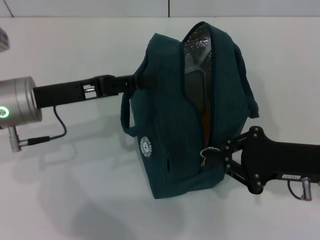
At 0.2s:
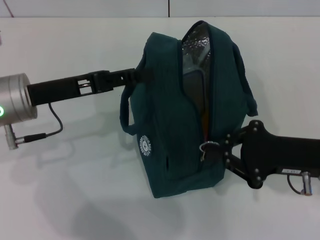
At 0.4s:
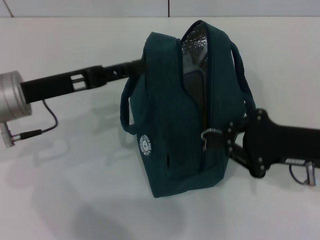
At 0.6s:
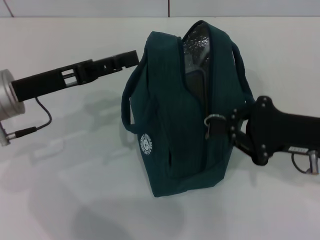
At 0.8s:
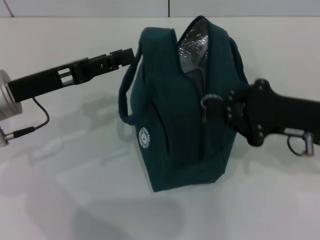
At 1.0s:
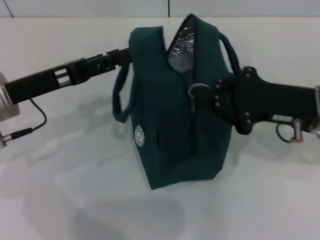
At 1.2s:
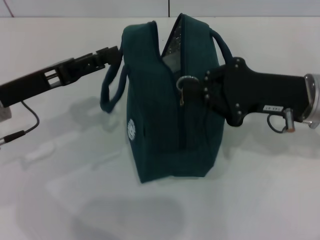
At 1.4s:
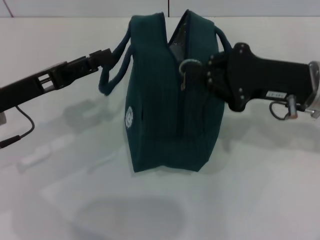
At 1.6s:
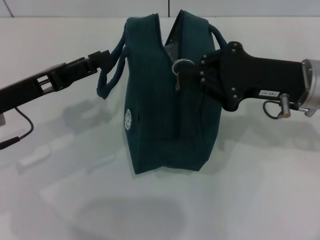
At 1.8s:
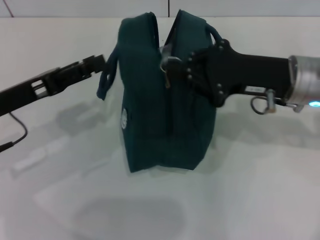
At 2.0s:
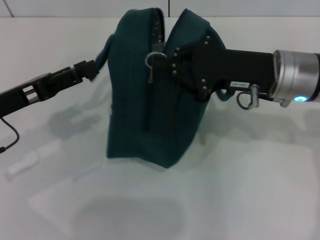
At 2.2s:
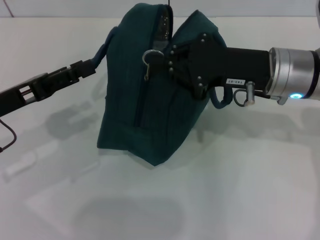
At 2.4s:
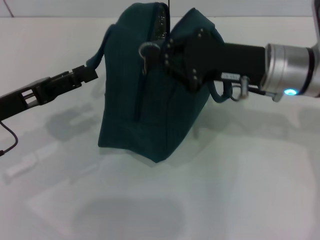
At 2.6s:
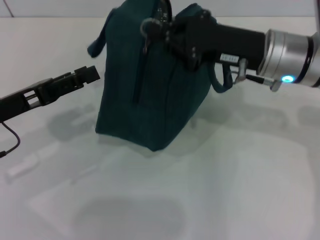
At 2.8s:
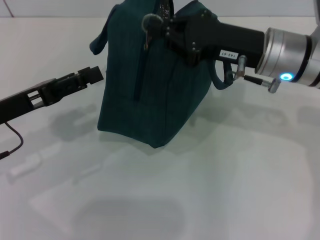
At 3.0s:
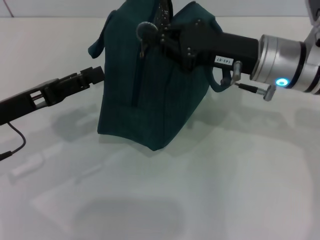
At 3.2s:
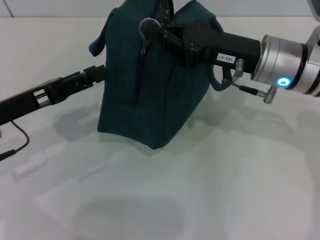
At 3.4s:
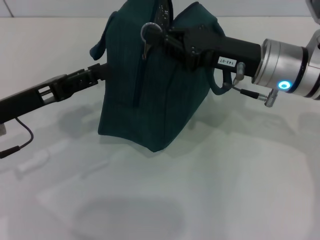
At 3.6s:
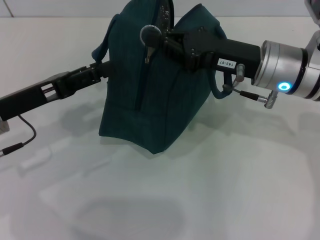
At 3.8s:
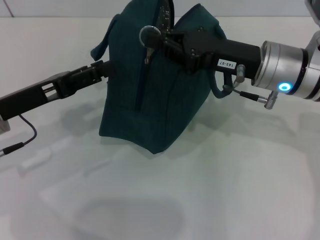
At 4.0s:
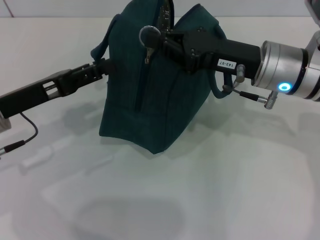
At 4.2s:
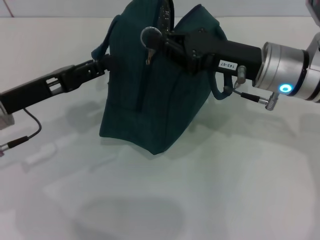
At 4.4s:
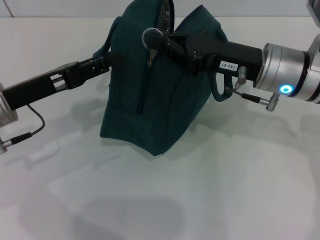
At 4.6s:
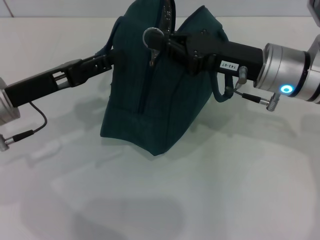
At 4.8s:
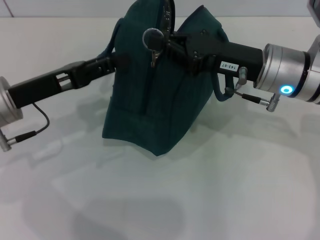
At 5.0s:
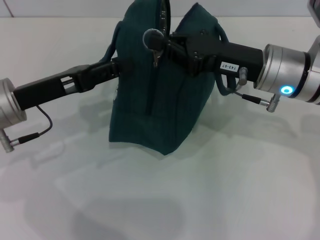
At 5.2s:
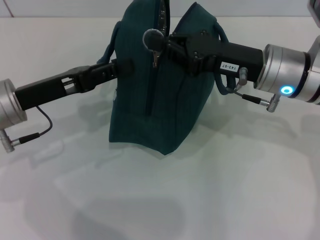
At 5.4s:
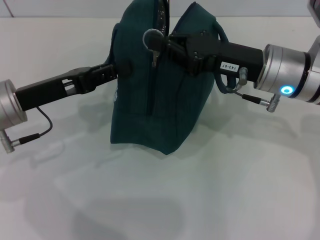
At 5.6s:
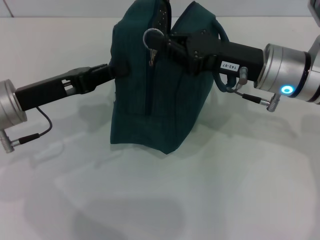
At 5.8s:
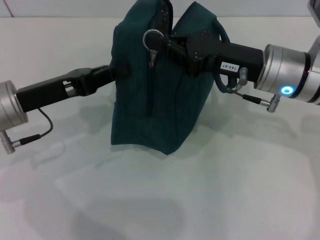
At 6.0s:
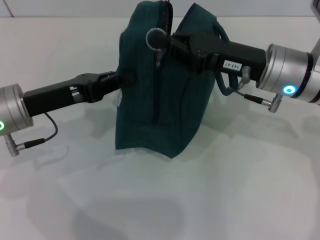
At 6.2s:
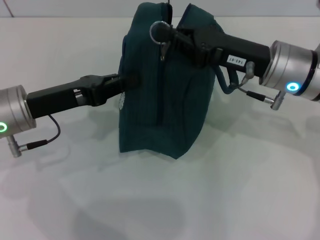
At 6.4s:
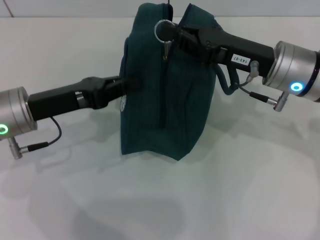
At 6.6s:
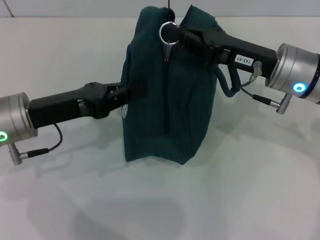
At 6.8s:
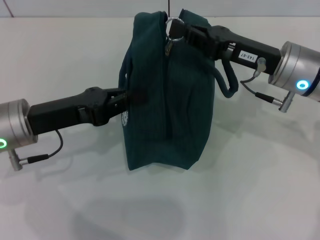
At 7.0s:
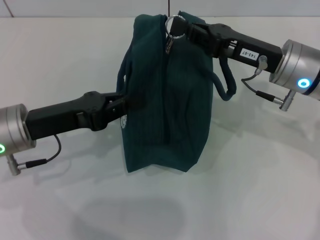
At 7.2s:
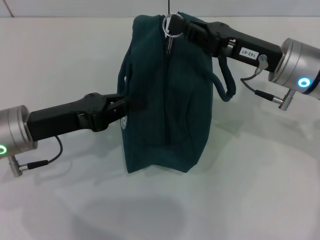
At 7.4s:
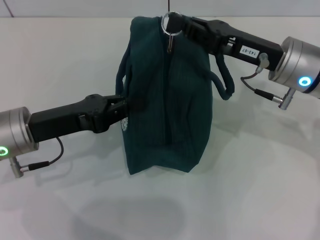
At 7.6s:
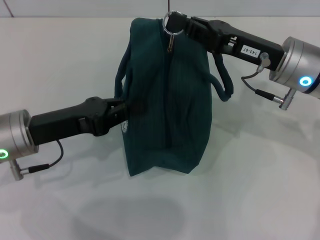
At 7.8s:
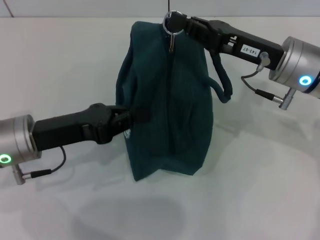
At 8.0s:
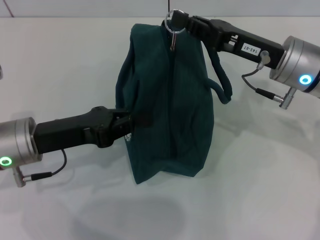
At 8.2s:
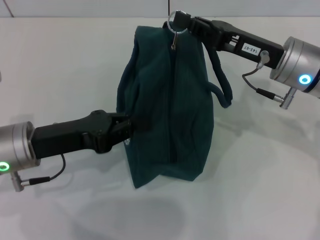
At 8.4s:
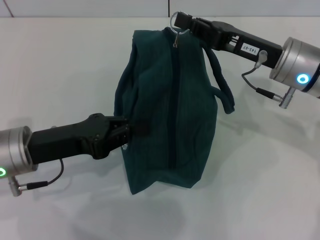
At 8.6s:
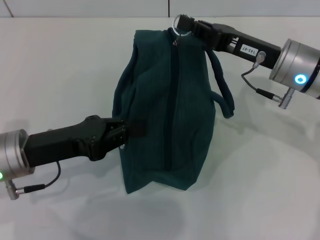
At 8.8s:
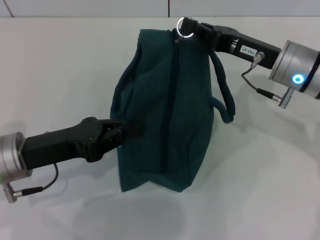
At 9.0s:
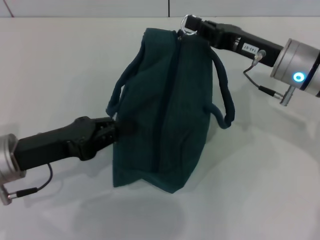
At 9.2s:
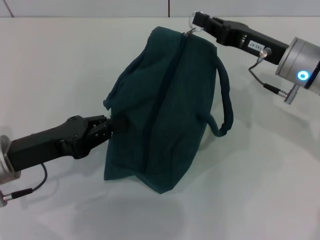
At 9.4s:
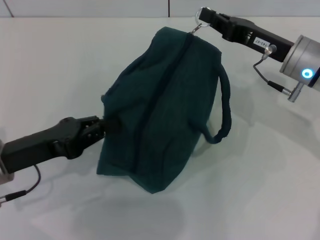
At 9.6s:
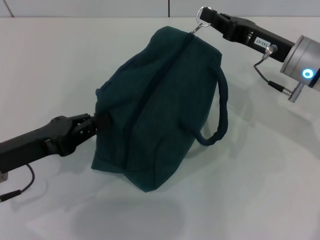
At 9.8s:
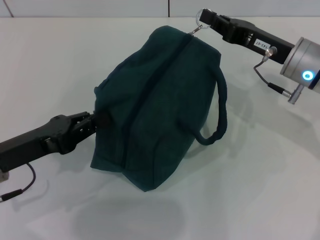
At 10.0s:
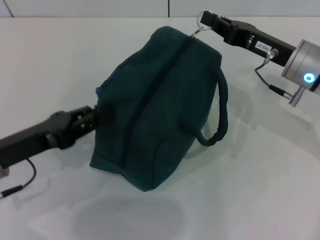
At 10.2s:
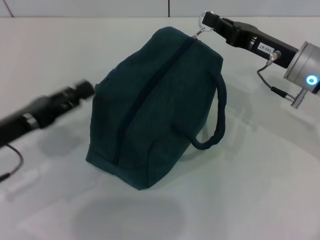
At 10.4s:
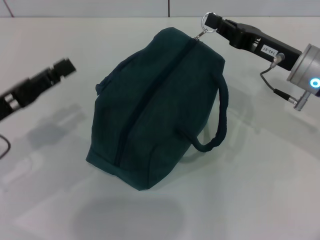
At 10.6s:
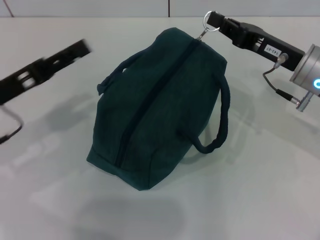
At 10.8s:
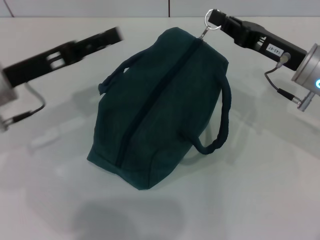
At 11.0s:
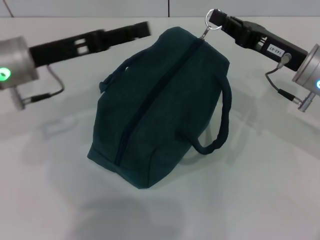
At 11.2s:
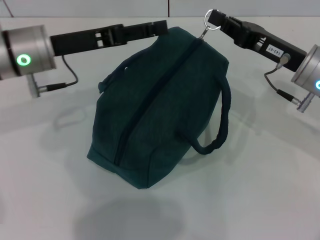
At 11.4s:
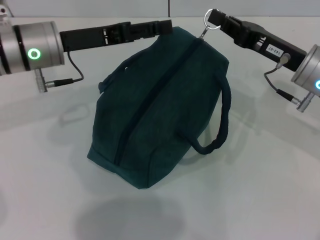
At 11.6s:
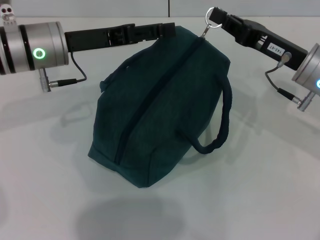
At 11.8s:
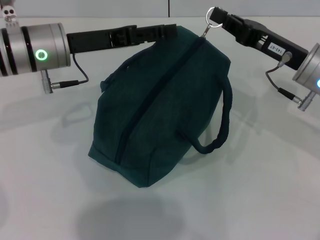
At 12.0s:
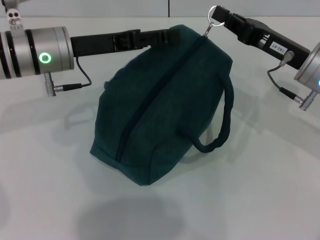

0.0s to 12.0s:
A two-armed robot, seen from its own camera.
0.0s to 1.6s: The right gripper shifts approximately 10 cm upward and forward; the left gripper shifts by roughly 5 cm, and opens its fingers.
1.6s to 3.0s: The right gripper is displaced to the left by about 5 cm.
3.0s to 4.4s: The left gripper closes up.
4.4s to 6.0s: The left gripper closes up.
7.6s to 9.0s: The grippers move only a little.
9.0s to 10.4s: The left gripper moves some 5 cm, and opens.
10.4s to 12.0s: The left gripper goes about 15 cm forward and to the right, and opens its fingers.

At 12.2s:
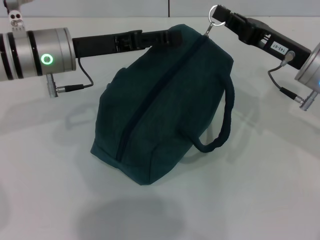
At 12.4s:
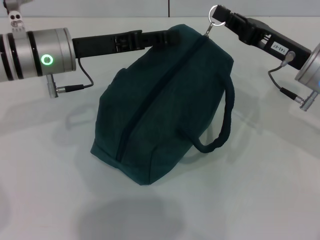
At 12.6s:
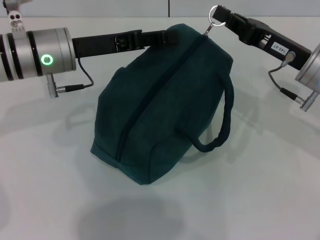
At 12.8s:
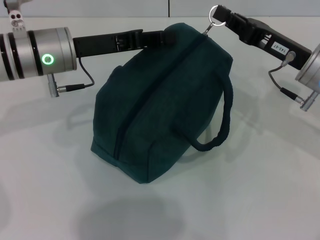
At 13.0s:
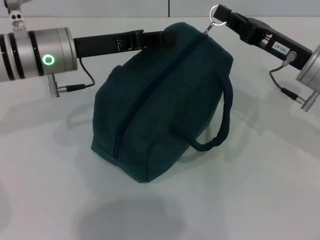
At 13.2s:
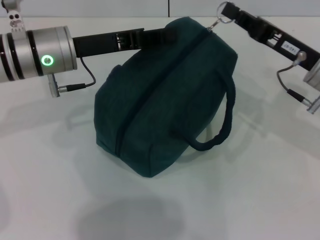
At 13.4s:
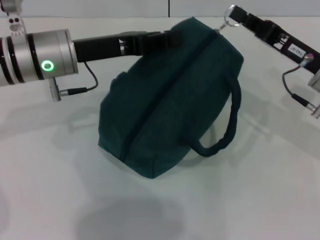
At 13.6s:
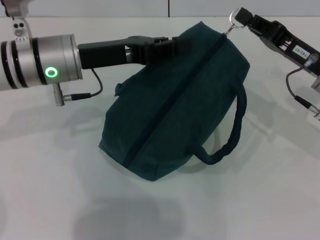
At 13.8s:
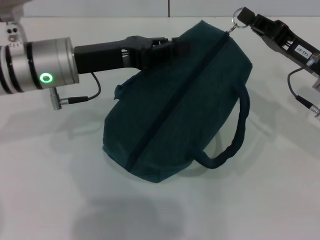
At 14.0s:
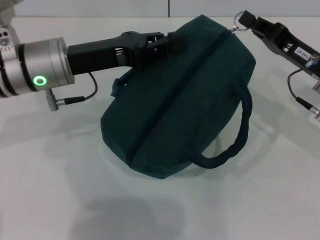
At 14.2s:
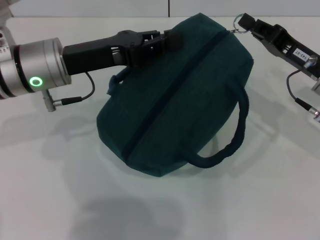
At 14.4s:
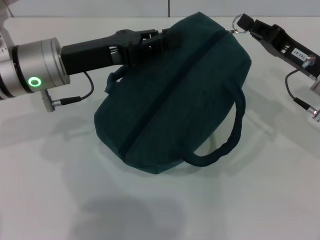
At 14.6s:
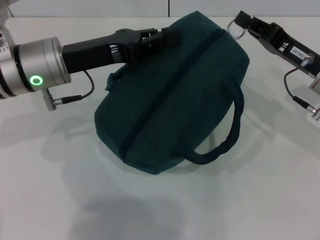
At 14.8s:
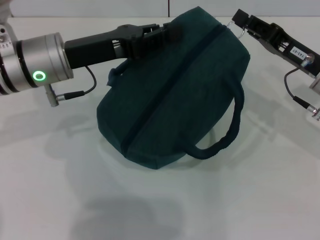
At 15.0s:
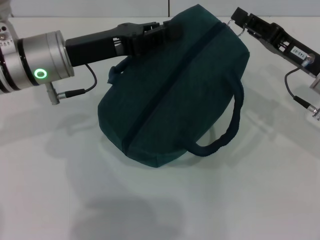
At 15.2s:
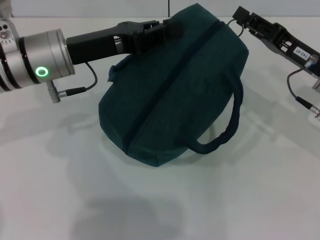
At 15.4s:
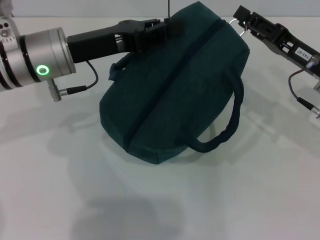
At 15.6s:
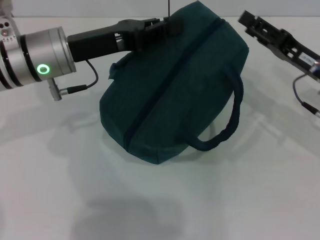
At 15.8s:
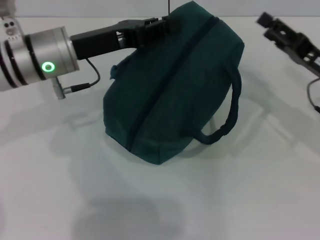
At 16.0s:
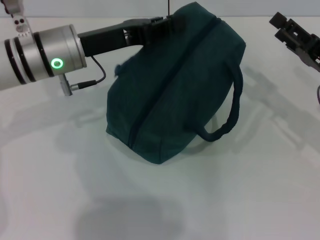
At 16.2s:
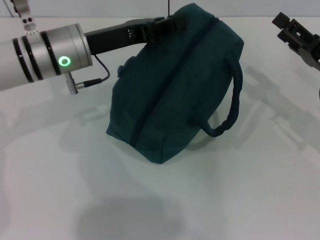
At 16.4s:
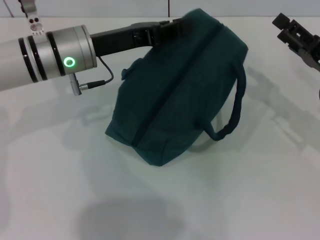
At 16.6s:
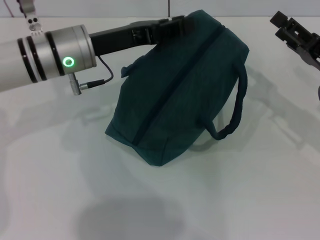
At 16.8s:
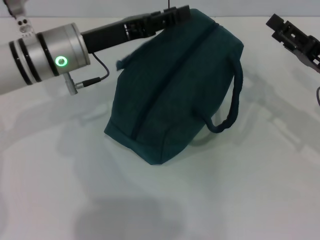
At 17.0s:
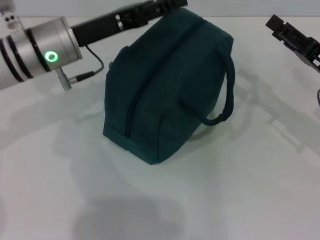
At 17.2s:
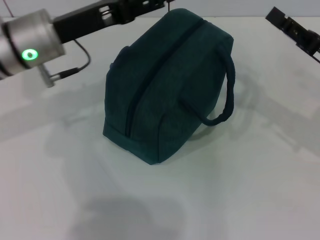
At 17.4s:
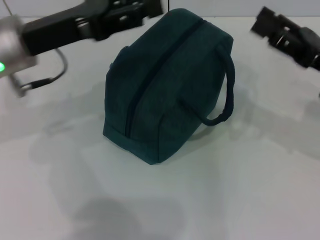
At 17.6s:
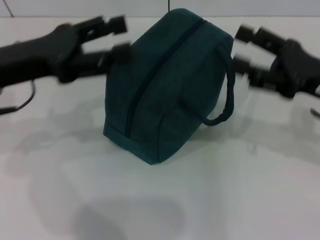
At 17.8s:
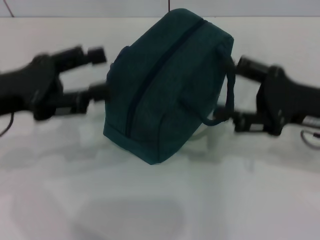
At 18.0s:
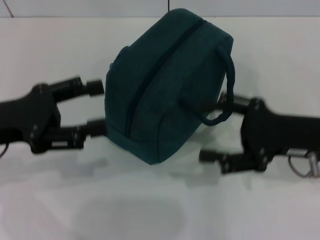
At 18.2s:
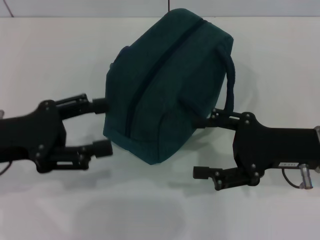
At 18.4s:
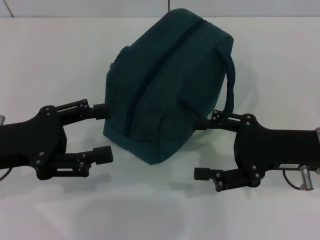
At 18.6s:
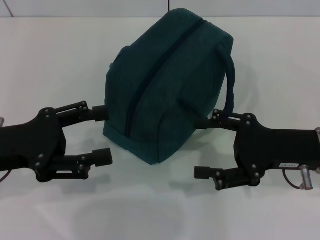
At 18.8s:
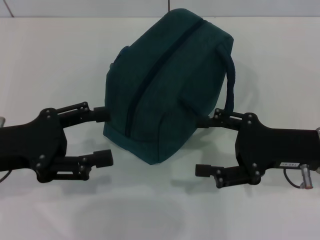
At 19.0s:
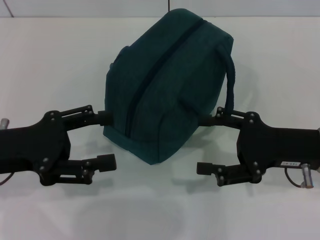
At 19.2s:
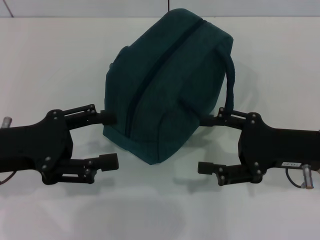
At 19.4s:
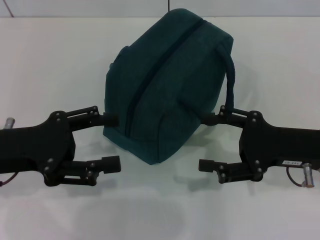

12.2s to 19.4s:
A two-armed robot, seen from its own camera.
Step, 12.2s to 15.4s: Zip up the lunch bag with your right hand.
Step, 15.8s to 16.8s: Hold the lunch bag with your left hand.
12.2s to 13.6s: The left gripper closes up.
13.6s to 15.0s: The grippers stay close to where they were, moving slightly.
15.0s to 16.6s: The right gripper ends up about 5 cm from where it was, and opens.
16.6s to 18.0s: The right gripper goes some 10 cm to the left and backward, while the left gripper moves backward and to the left, approximately 15 cm, and opens up.
18.0s to 19.4s: There are only small adjustments of the grippers.

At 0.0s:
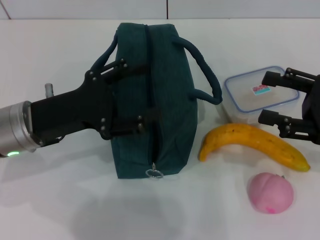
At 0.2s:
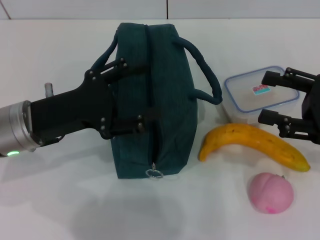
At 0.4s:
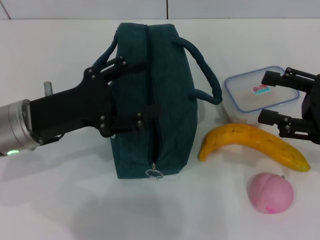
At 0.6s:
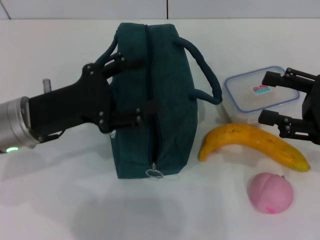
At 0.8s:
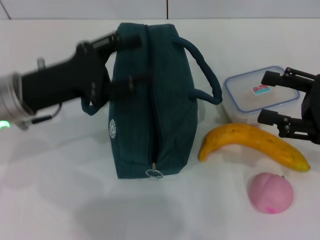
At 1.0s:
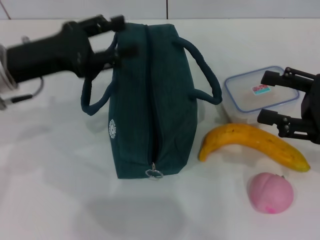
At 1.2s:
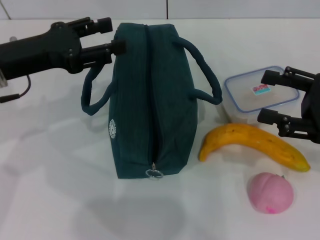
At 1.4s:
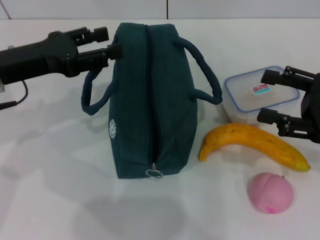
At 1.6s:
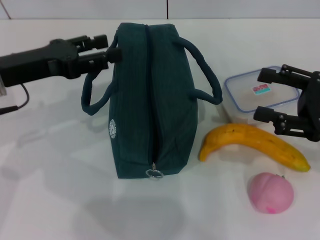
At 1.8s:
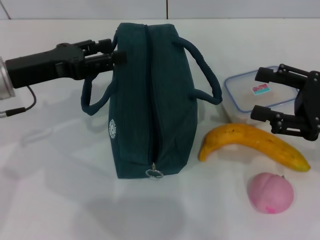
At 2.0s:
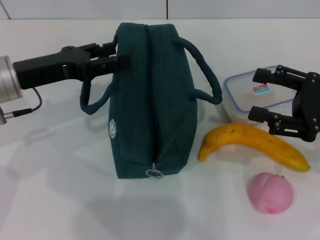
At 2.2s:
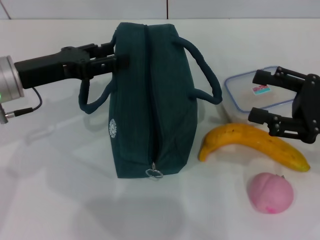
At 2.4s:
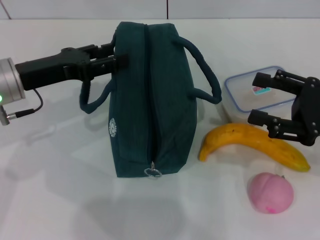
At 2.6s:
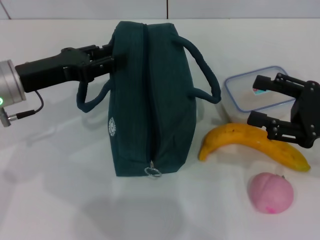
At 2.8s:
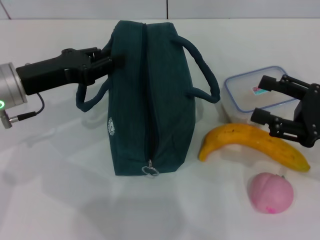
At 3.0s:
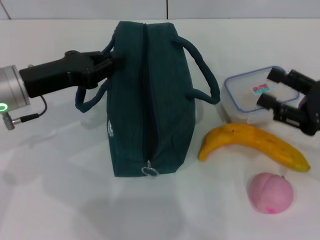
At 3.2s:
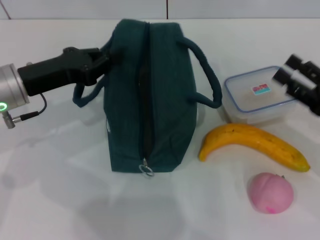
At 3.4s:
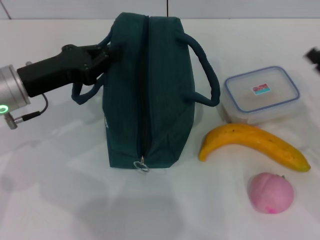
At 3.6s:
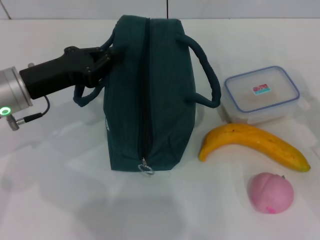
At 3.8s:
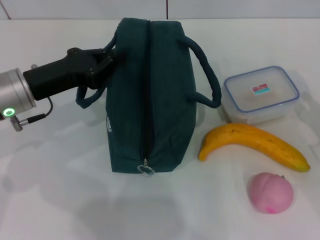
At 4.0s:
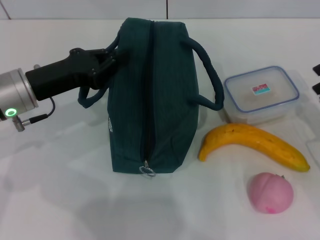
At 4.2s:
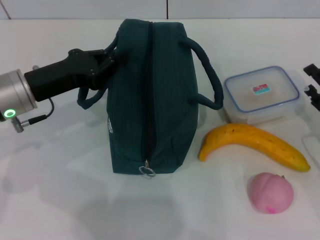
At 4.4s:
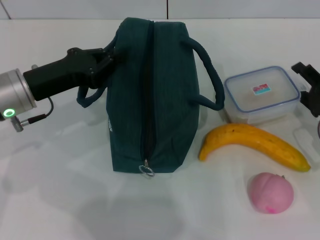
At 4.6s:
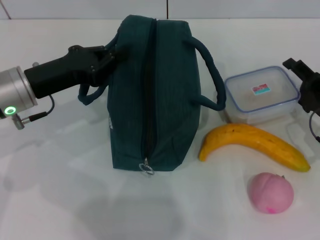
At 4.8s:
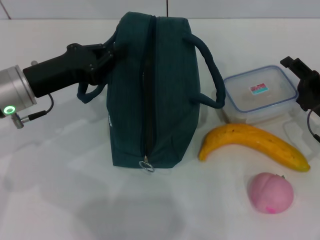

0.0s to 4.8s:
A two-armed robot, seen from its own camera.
Step, 0.0s to 3.4s: Hold the lunch bag with your left hand.
0.0s to 1.6s: The left gripper moves approximately 10 cm.
1.6s to 3.2s: The right gripper moves downward, some 5 cm. Meanwhile the left gripper closes its fingers.
3.2s to 4.8s: The right gripper travels downward by about 5 cm.
